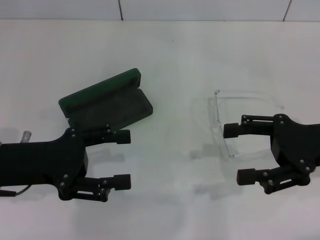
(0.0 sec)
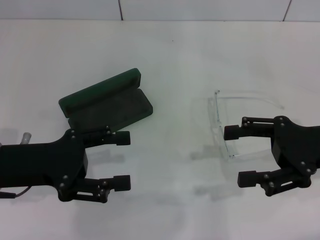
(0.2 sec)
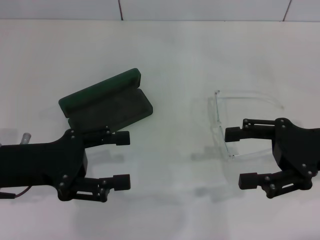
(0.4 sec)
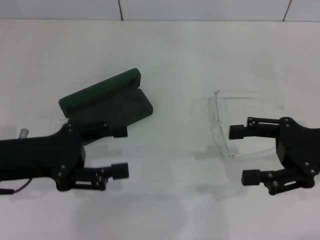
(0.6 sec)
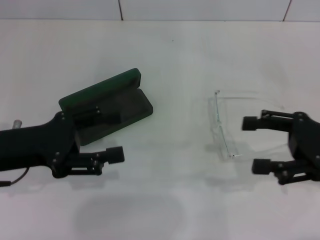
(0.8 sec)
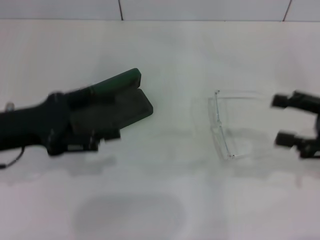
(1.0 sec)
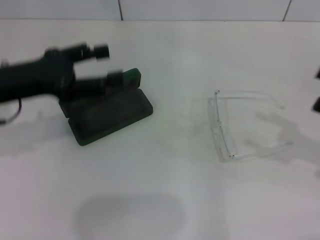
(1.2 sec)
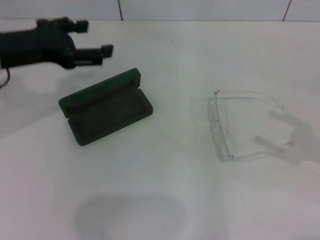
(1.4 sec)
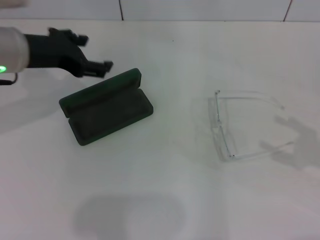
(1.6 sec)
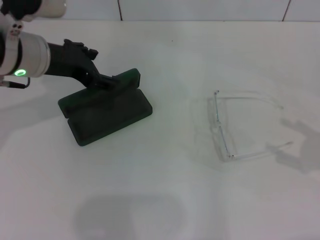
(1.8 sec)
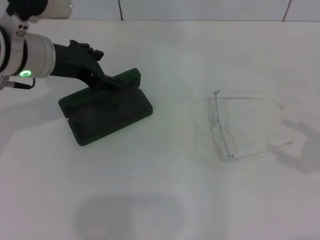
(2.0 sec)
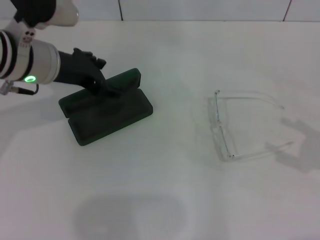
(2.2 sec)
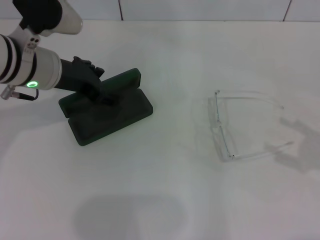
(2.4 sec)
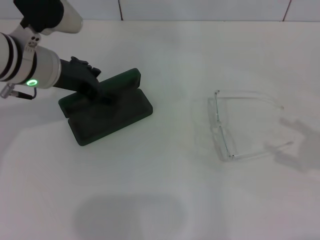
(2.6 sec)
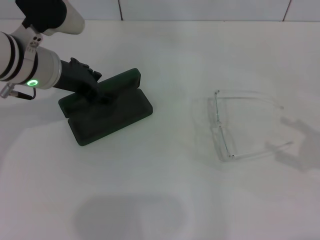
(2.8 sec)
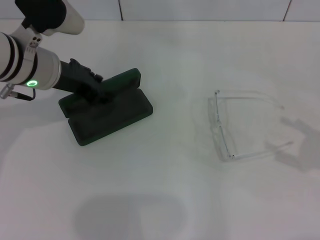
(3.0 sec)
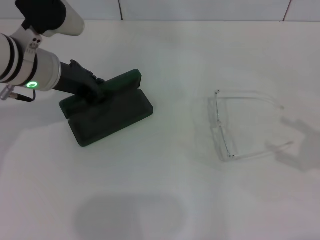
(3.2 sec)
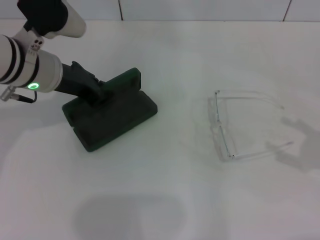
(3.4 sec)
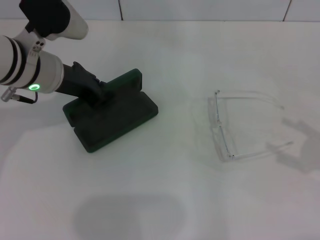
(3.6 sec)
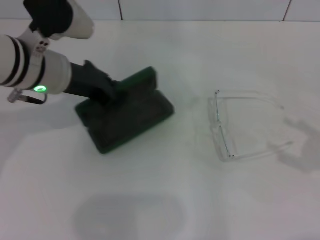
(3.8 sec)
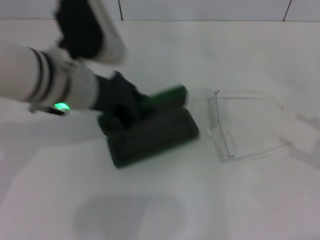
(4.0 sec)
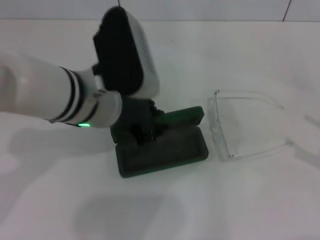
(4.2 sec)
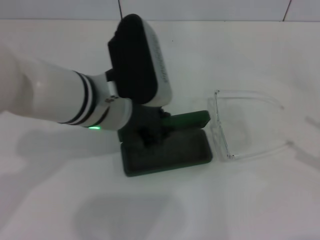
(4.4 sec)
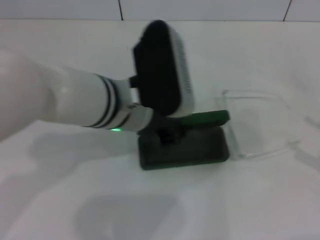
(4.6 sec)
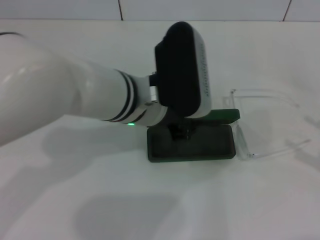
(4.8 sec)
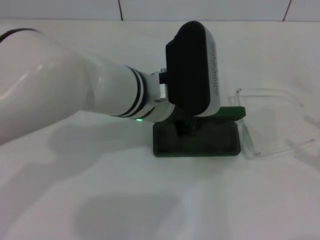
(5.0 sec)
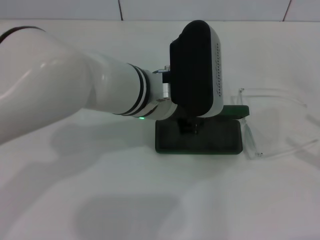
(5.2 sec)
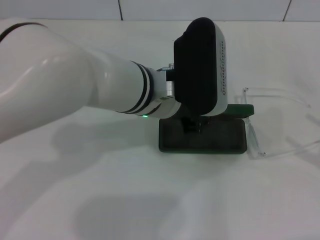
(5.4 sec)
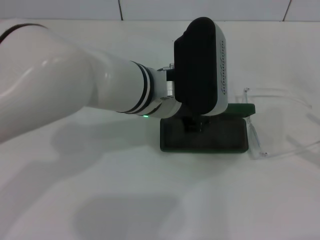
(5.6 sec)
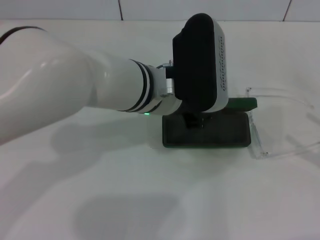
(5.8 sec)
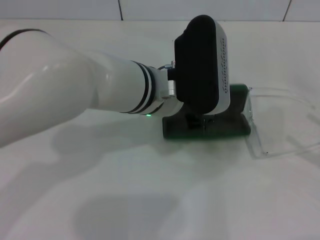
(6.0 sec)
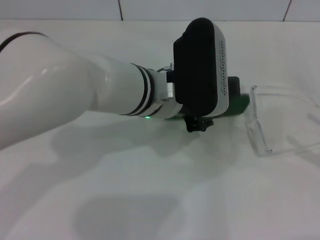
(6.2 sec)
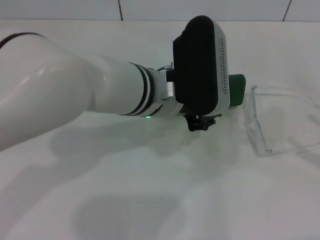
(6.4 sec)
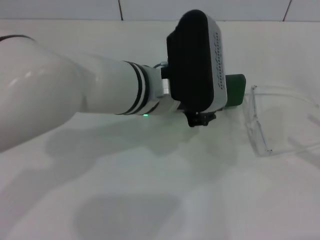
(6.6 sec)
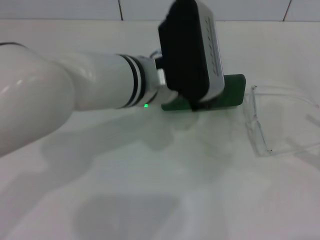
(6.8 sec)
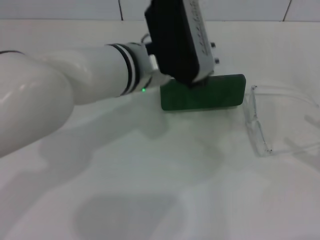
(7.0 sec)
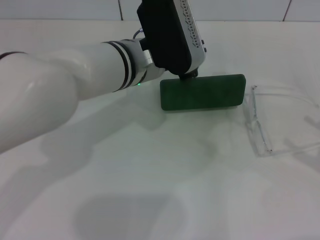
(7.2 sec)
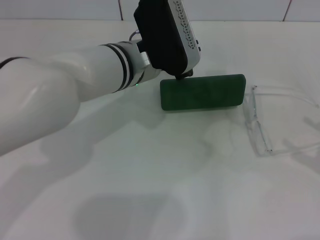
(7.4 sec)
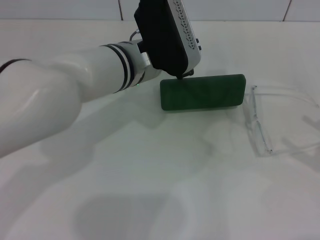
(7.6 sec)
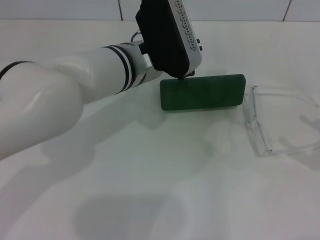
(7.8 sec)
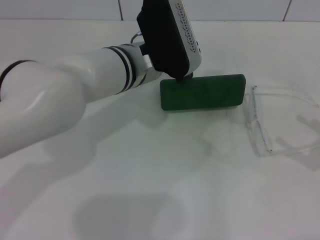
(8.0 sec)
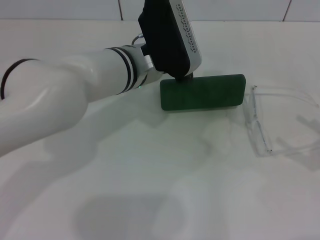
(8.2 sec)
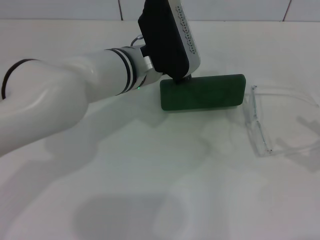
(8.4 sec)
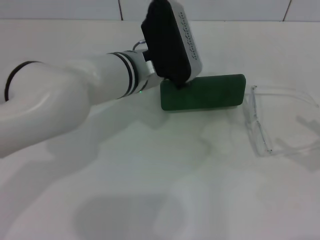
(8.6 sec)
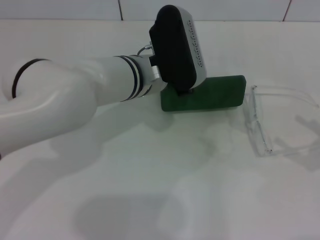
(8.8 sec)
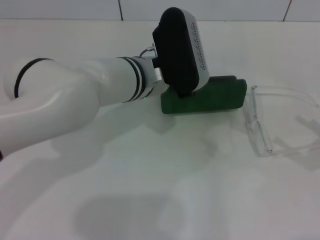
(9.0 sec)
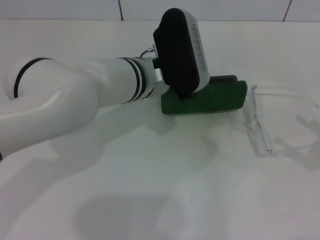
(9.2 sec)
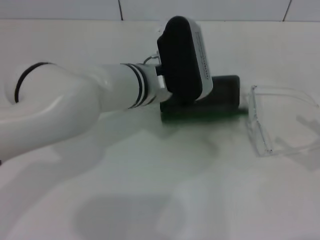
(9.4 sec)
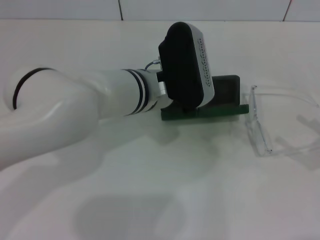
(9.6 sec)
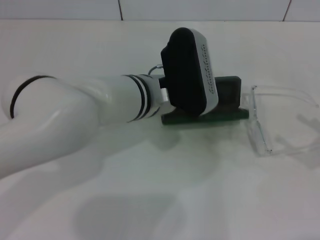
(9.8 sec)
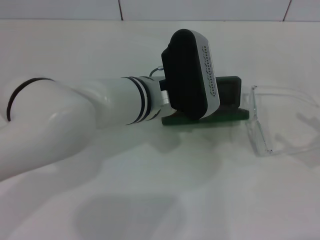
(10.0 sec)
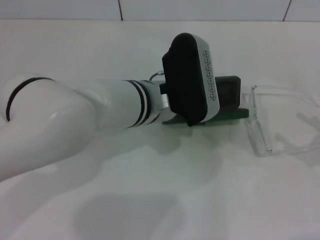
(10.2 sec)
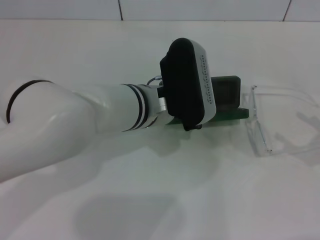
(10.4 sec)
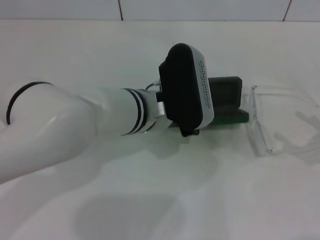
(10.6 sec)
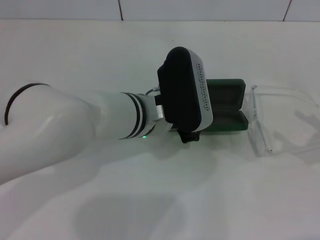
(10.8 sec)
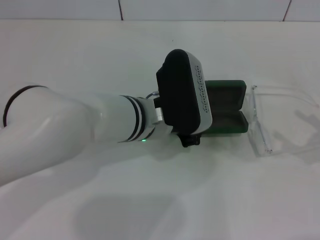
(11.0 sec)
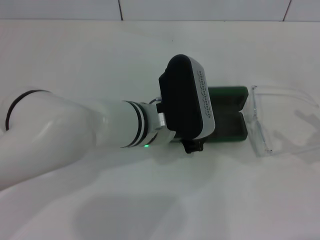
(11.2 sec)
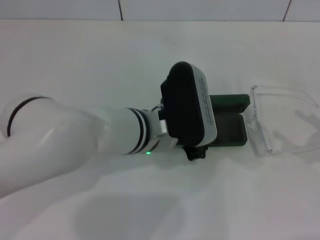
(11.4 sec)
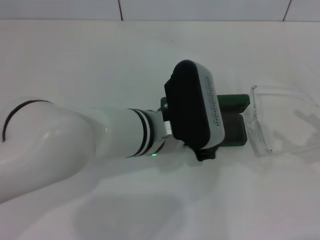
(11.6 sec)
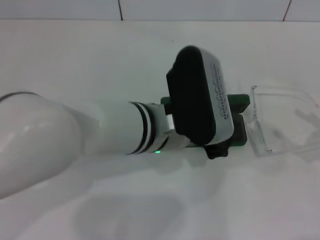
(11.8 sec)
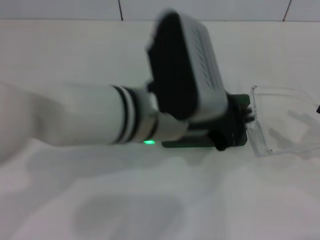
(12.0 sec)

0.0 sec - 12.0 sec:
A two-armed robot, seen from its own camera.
Step, 0.0 sec - 3.0 sec: Grab the glasses case with your left hand.
Step, 3.4 sec - 11.6 sec: Place the glasses case in the center of the table with your left hand.
0.0 sec - 1.6 sec: The left gripper travels forward and upward by some 15 cm, while the right gripper goes roughly 10 cm to the right and backward.
1.6 sec - 3.0 sec: The grippers make only small movements.
3.0 sec - 4.4 sec: The left gripper heads to the right and backward, covering some 10 cm, and closes up.
4.4 sec - 6.0 sec: The left gripper travels to the right by about 5 cm.
6.0 sec - 7.6 sec: The left gripper moves roughly 5 cm.
7.6 sec - 10.4 sec: The grippers make only small movements.
10.4 sec - 12.0 sec: The left gripper is displaced upward and backward by some 10 cm.

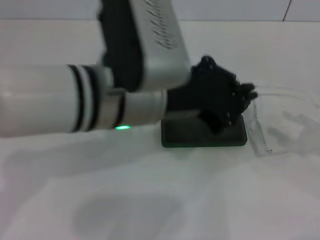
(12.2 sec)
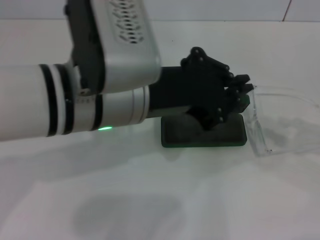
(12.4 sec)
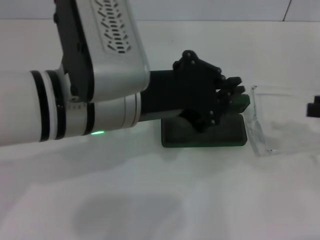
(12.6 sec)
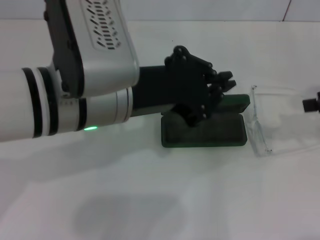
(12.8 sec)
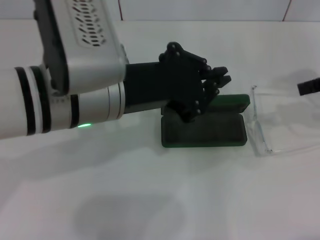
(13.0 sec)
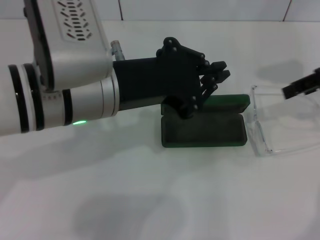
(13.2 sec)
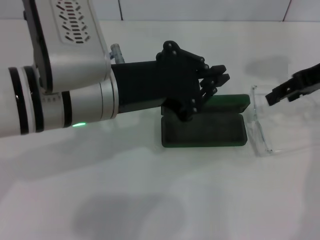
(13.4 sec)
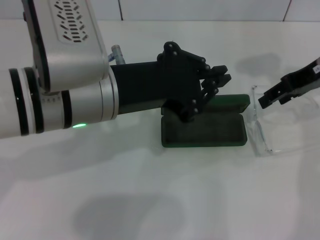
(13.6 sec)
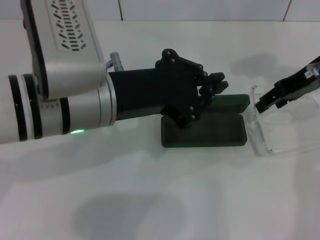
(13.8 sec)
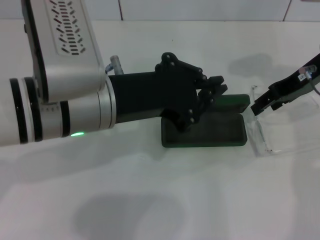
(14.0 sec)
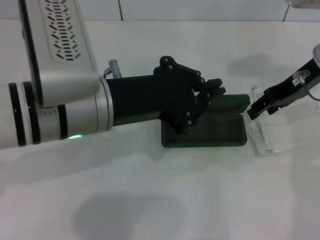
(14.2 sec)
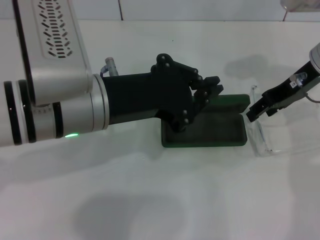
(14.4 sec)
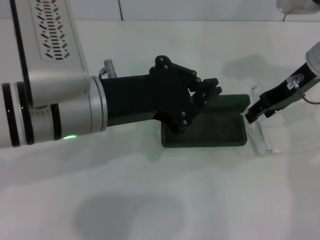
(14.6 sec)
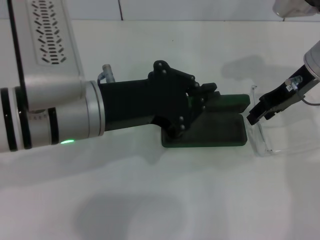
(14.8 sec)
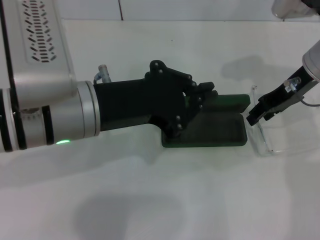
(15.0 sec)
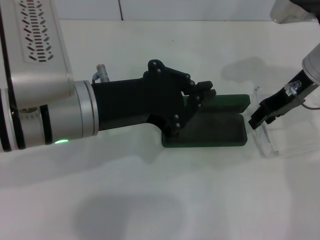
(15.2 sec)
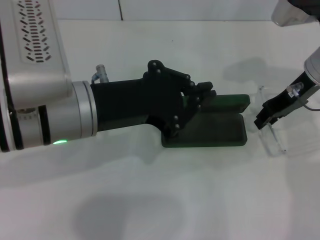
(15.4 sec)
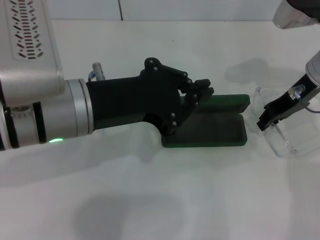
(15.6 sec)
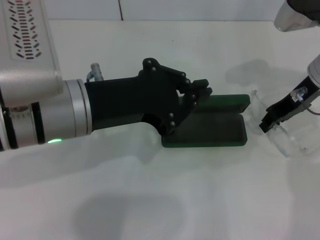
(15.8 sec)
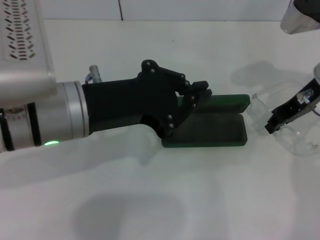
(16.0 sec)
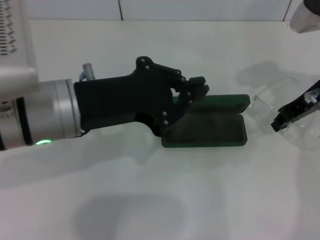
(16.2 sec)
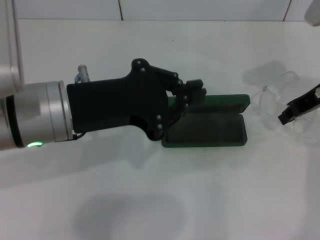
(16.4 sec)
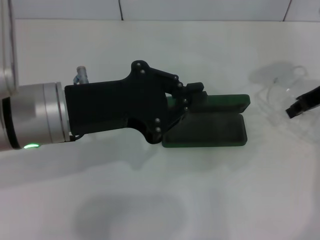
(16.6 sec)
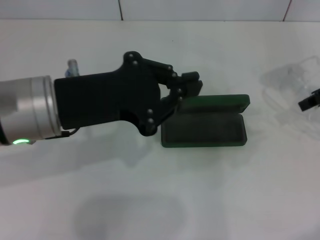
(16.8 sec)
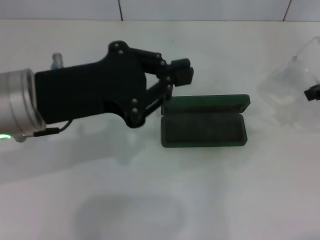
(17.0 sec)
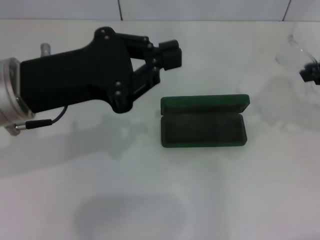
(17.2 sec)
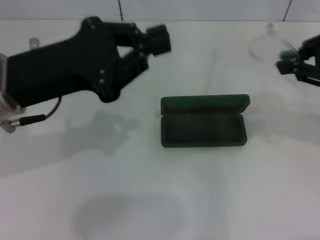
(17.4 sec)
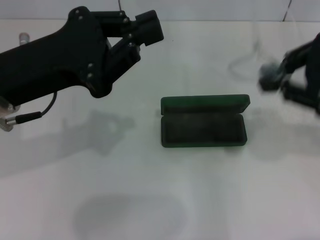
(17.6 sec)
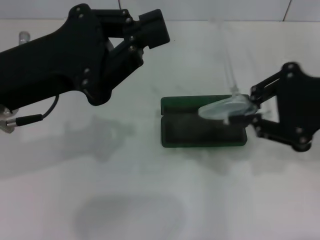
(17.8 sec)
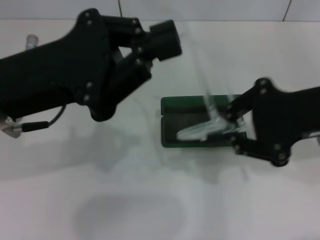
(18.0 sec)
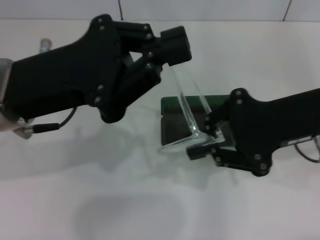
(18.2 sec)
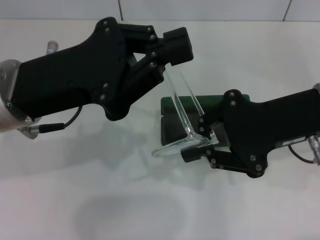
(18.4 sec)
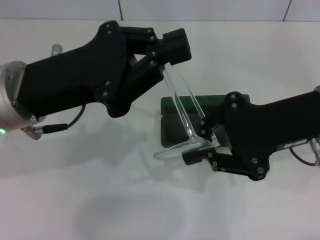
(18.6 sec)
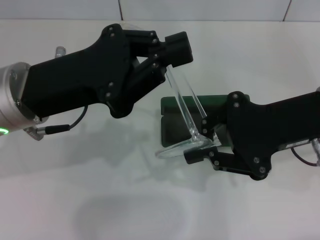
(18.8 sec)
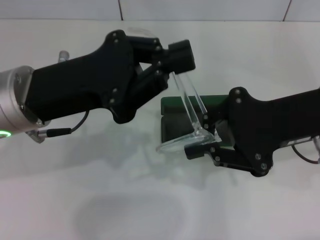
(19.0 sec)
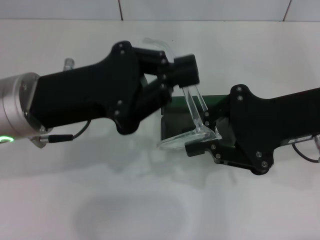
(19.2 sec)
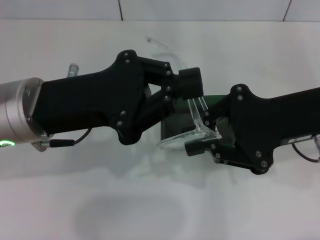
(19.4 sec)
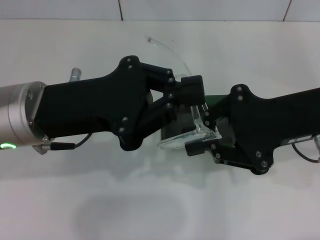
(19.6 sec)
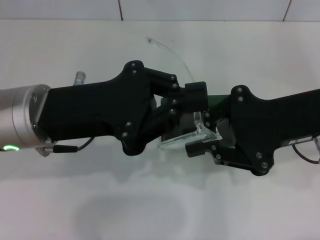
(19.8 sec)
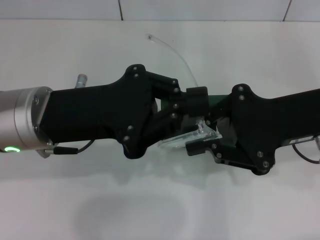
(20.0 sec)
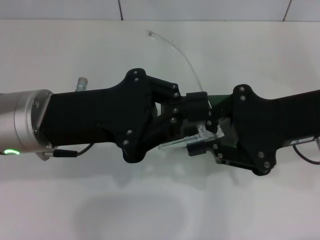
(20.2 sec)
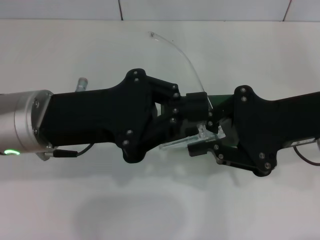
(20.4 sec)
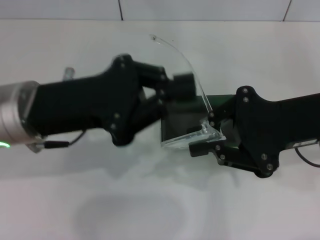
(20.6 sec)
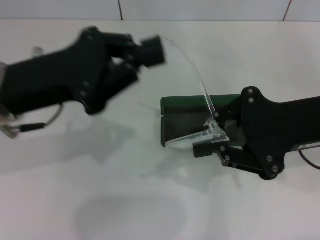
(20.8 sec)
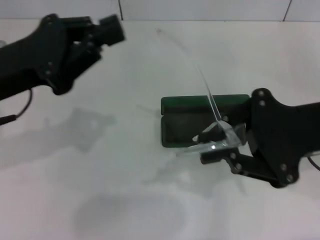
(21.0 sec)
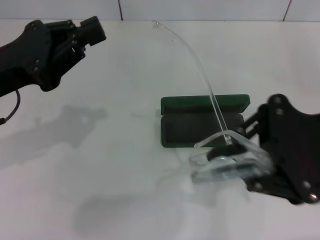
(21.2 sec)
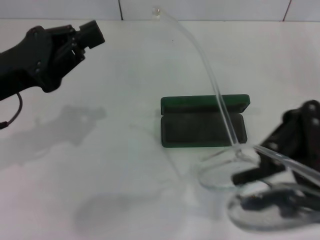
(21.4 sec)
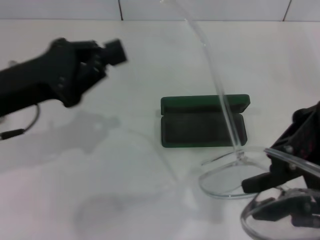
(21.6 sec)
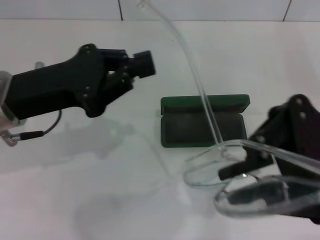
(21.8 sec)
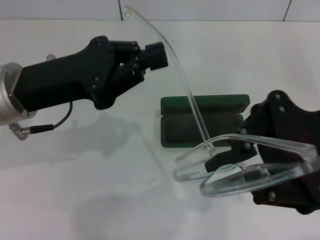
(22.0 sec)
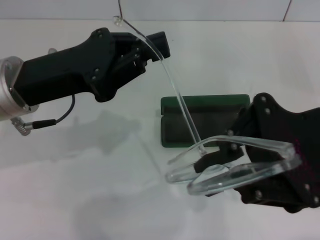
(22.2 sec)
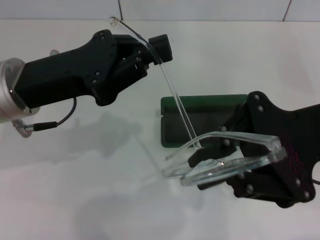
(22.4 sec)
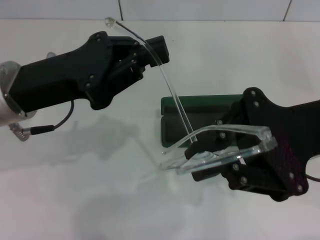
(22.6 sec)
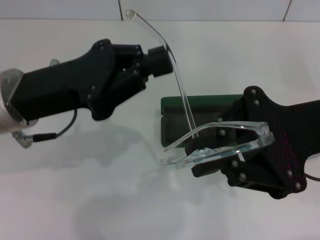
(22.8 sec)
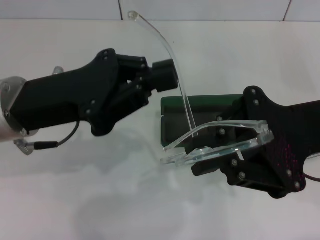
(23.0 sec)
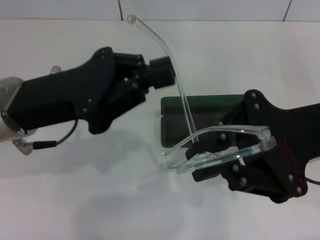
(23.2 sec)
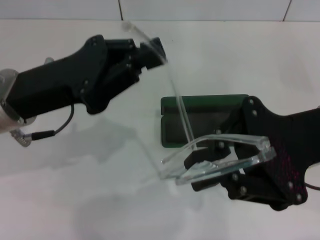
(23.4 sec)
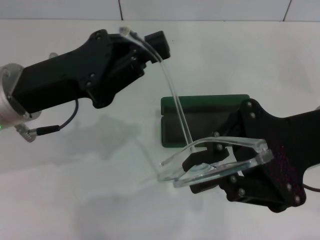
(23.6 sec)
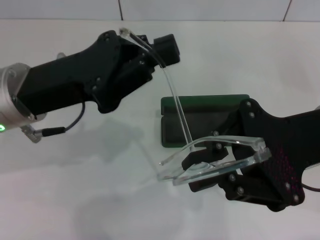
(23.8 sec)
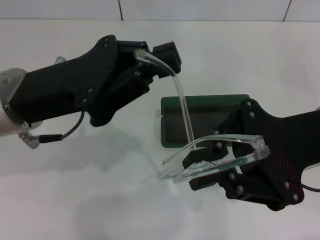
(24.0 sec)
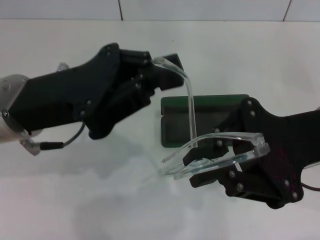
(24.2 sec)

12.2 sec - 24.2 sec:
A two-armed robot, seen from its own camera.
Step, 12.2 sec - 15.4 sec: Grab the eyeglass frame with your right hand.
12.2 sec - 13.8 sec: The right gripper moves forward, to the left and upward, approximately 25 cm, and closes up.
13.8 sec - 15.2 sec: There are only small adjustments of the grippers.
15.2 sec - 16.6 sec: The right gripper goes roughly 5 cm to the right, and closes up.
16.6 sec - 18.2 sec: The right gripper travels backward and to the left by roughly 10 cm.
19.8 sec - 21.2 sec: The left gripper moves to the left, approximately 10 cm.
21.2 sec - 22.6 sec: The left gripper is displaced to the right by some 5 cm.
